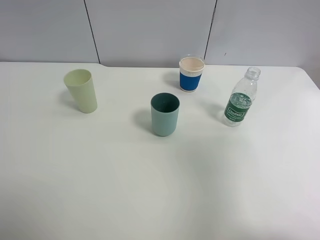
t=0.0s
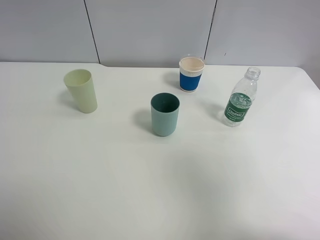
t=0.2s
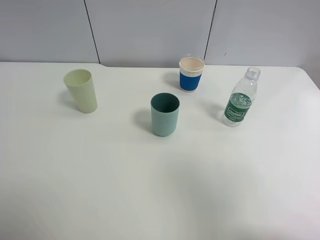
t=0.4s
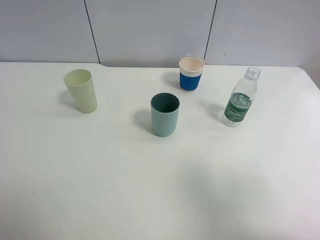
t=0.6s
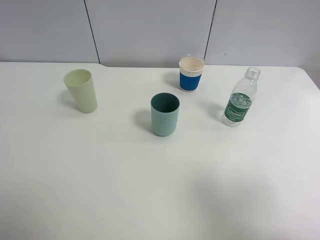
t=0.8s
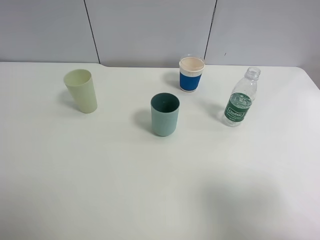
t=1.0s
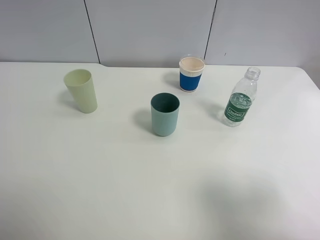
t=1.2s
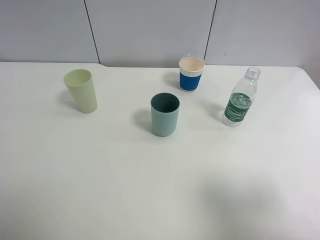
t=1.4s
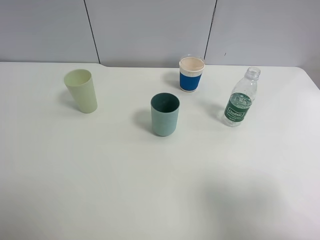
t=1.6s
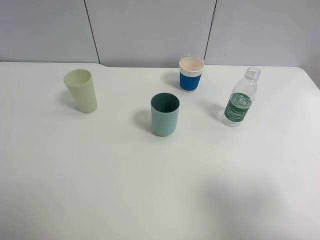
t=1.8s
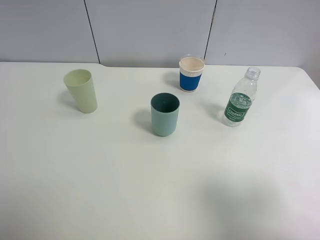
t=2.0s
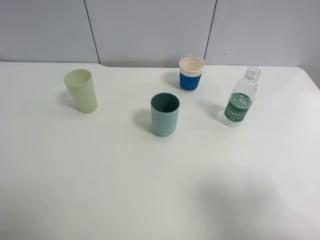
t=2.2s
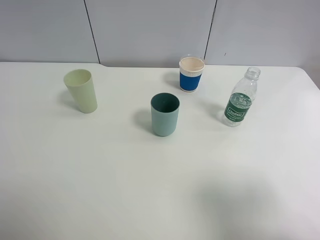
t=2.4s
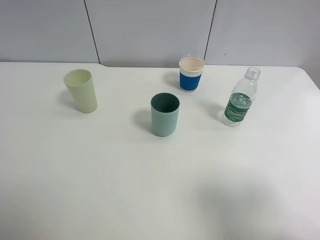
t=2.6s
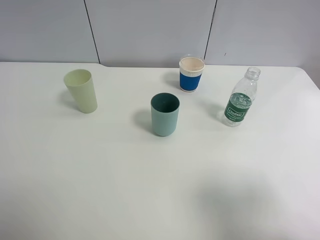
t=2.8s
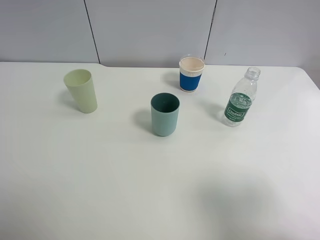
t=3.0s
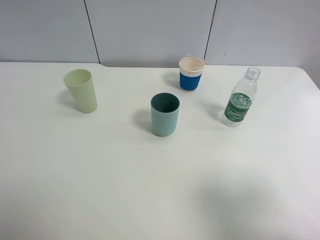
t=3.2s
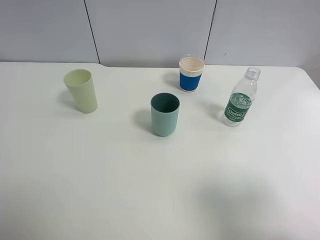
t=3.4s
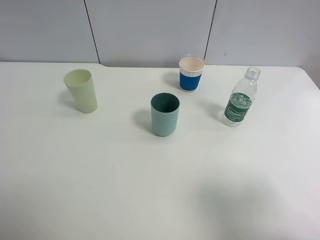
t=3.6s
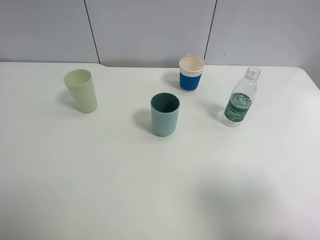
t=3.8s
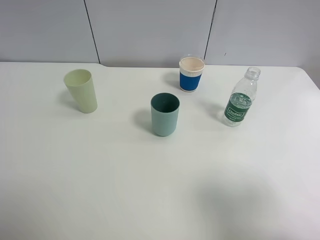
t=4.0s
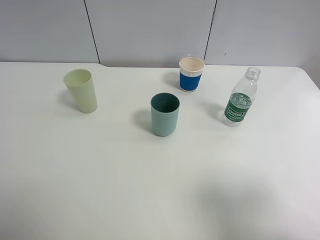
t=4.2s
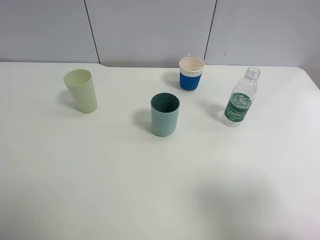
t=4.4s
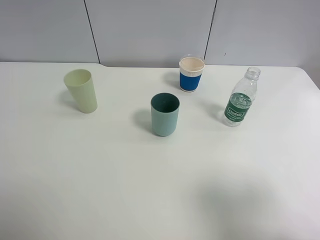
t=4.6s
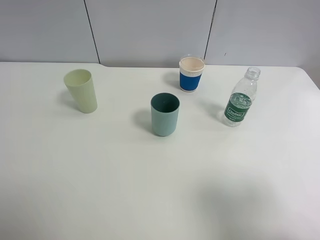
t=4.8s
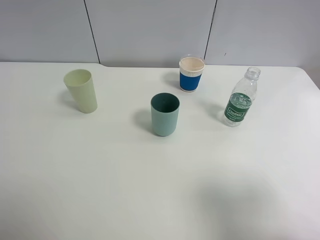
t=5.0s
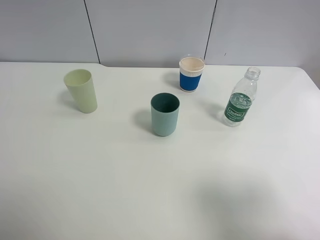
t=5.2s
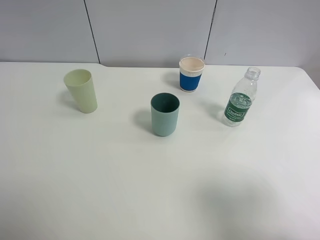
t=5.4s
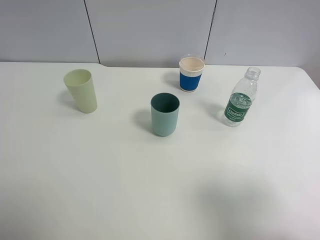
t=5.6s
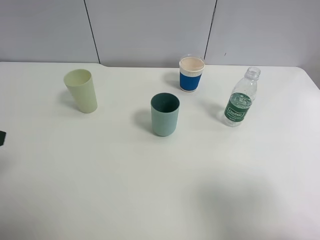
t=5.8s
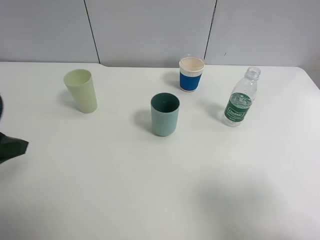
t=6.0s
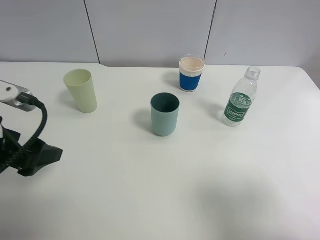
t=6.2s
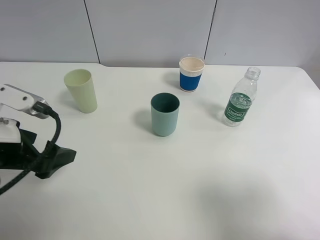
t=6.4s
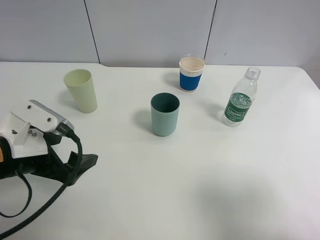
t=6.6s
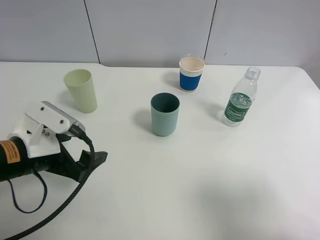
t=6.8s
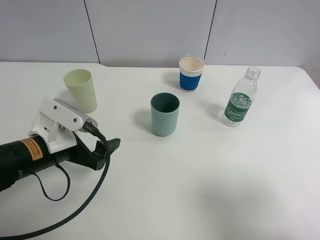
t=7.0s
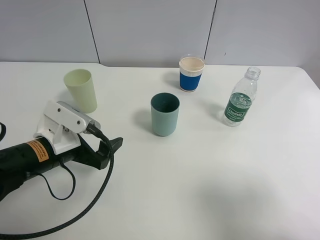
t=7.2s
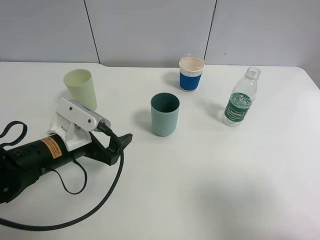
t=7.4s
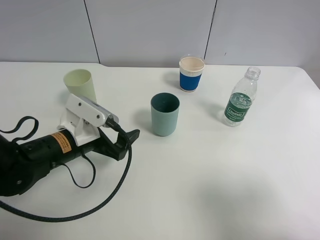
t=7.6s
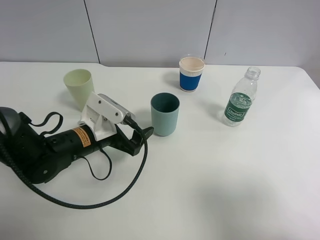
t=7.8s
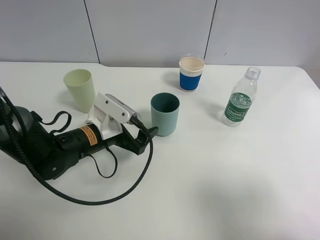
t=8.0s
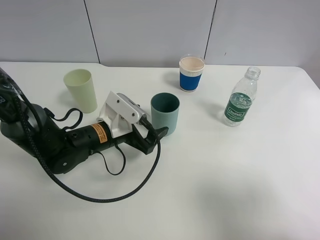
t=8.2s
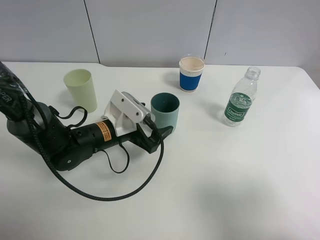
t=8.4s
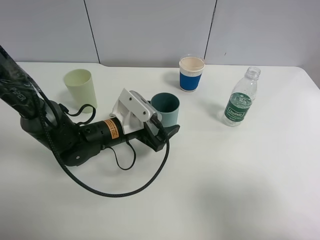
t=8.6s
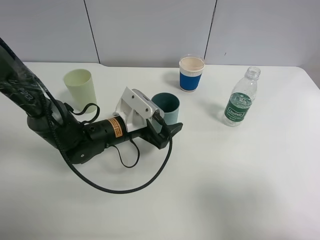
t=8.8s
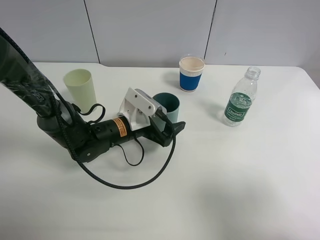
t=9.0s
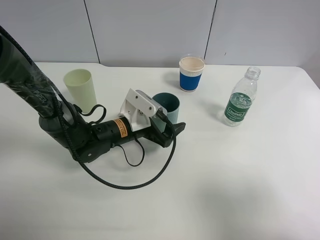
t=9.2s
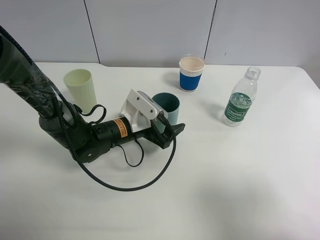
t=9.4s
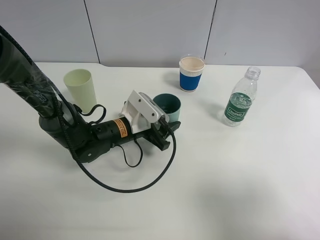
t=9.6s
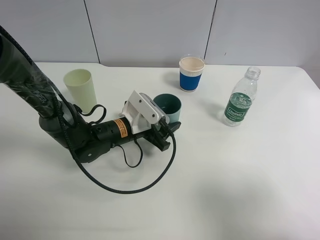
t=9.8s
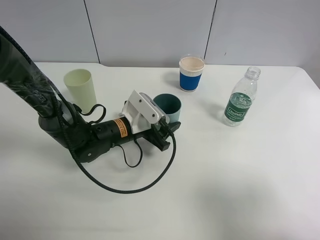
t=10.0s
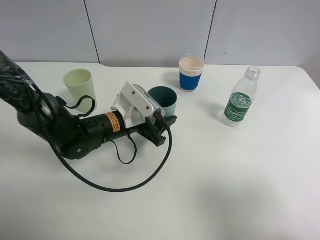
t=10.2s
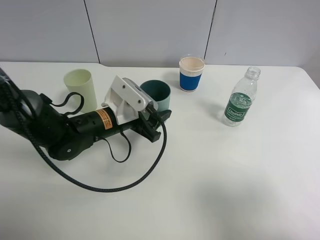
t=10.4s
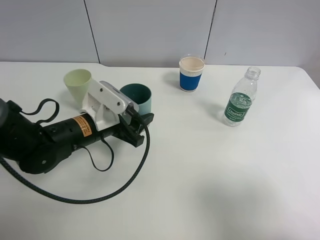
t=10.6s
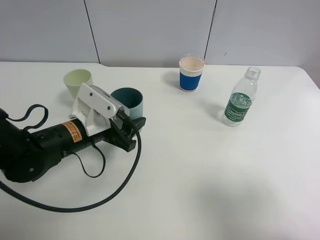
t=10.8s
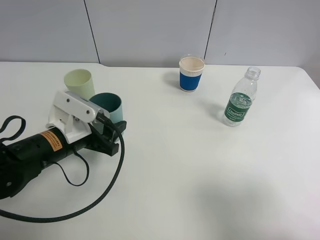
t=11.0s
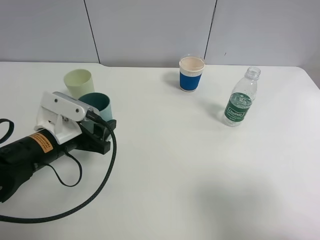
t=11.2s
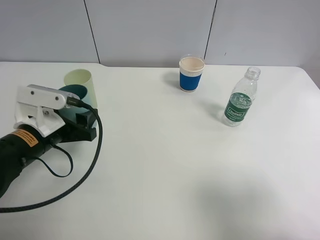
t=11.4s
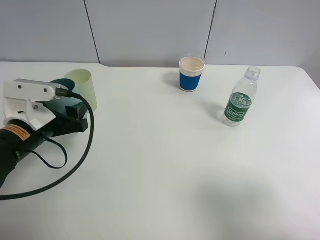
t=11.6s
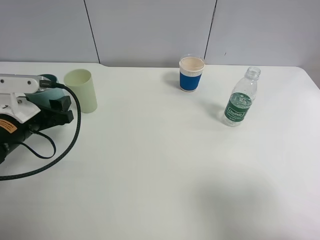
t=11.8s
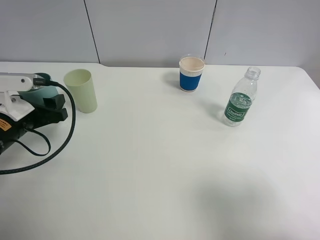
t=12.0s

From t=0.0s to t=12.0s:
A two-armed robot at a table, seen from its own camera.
Task of the whole recording: use a clamp to hold the bottle of the drink, pour the beverage into a random cup, then clamp the cup containing the drink and pour the drink into another random cup.
Step, from t=0.0s to t=10.2s: Pick up the blue plastic cup bottle with left gripper.
From t=0.0s to t=1.6s: The right gripper moves downward and backward, roughly 10 cm.
From t=3.0s to t=4.4s: Both grippers stay about where they are.
From t=4.4s to t=6.0s: The left gripper moves forward, about 15 cm.
From t=6.0s to t=7.6s: The left gripper moves downward, to the right and forward, some 20 cm.
From t=7.6s to t=9.0s: The left gripper moves to the right and forward, approximately 10 cm.
From t=9.0s to t=10.4s: The left gripper ends up about 5 cm from where it was, and closes its fingers.
From t=10.4s to t=12.0s: The left gripper shifts approximately 15 cm to the left.

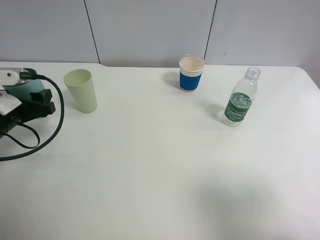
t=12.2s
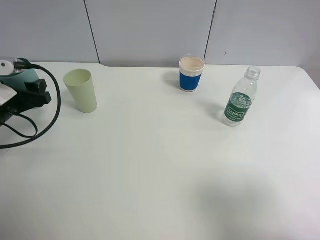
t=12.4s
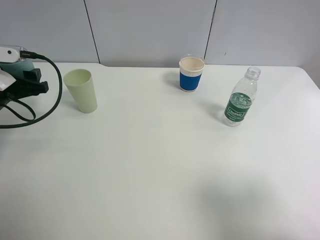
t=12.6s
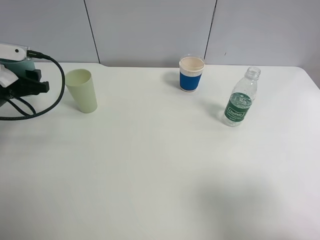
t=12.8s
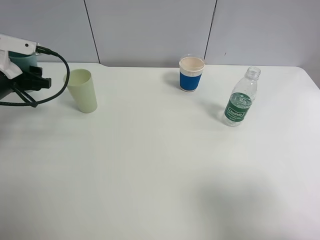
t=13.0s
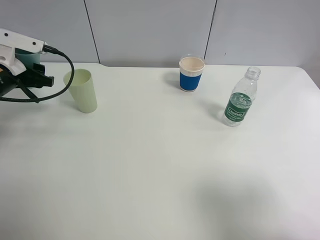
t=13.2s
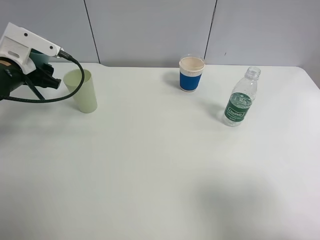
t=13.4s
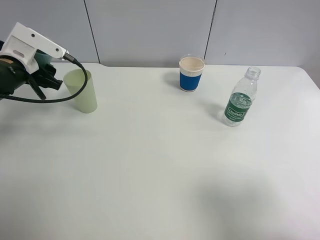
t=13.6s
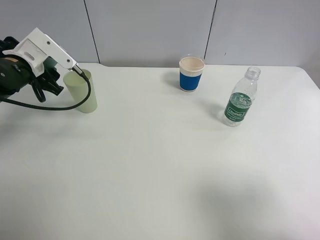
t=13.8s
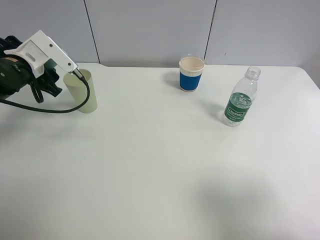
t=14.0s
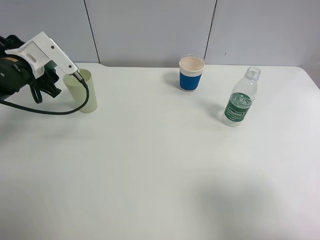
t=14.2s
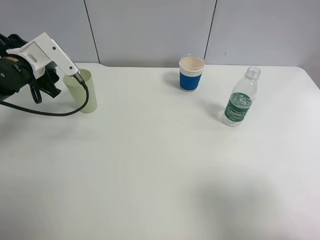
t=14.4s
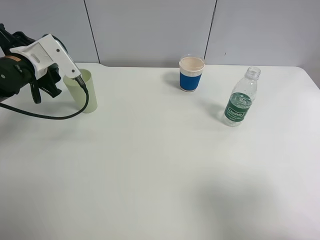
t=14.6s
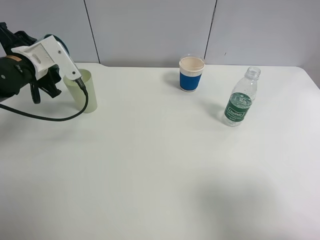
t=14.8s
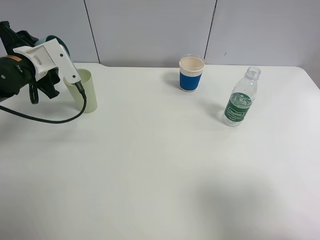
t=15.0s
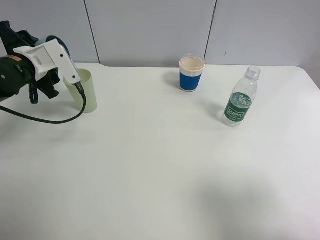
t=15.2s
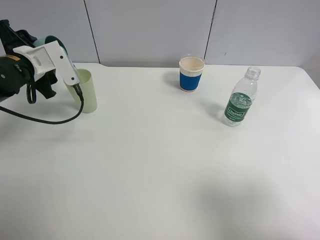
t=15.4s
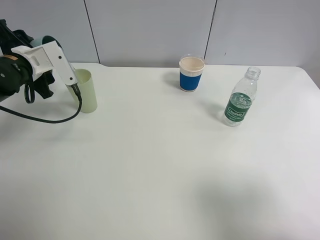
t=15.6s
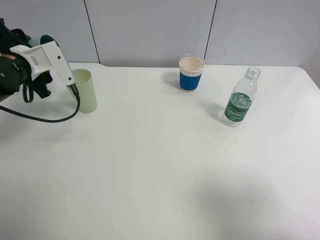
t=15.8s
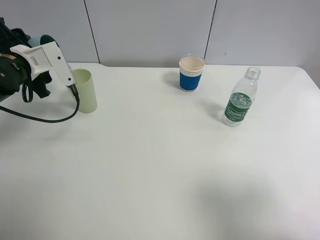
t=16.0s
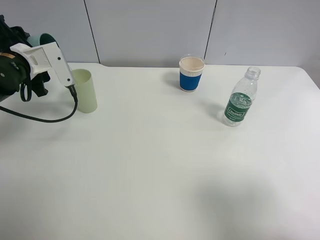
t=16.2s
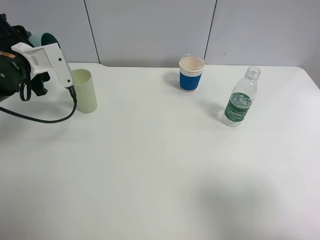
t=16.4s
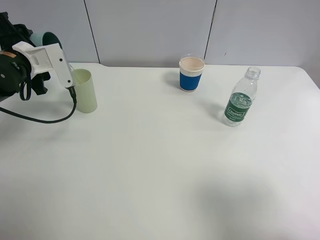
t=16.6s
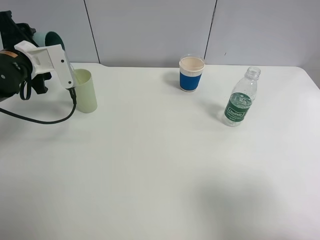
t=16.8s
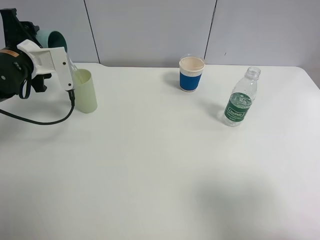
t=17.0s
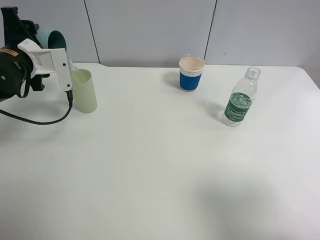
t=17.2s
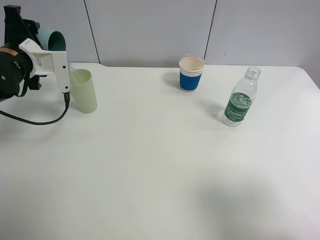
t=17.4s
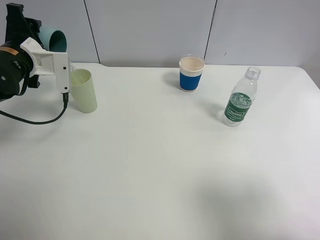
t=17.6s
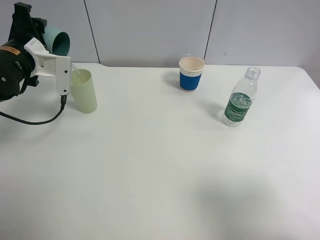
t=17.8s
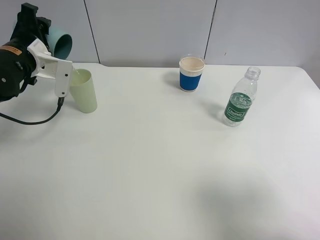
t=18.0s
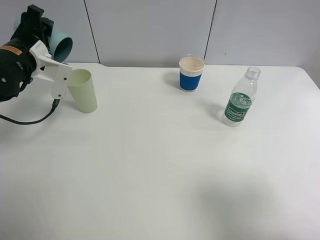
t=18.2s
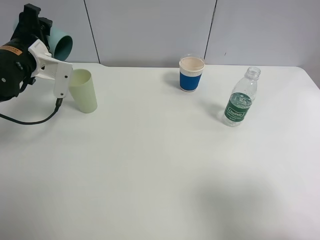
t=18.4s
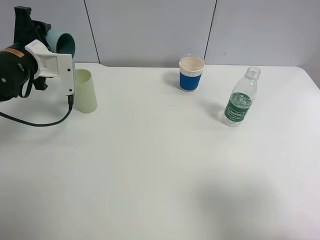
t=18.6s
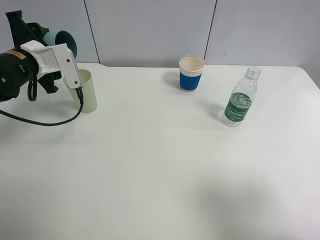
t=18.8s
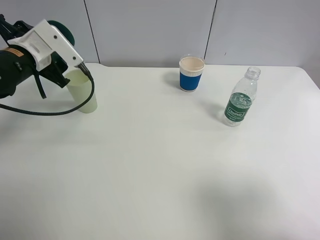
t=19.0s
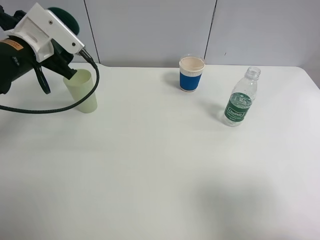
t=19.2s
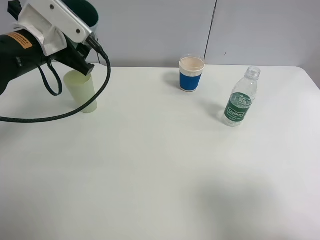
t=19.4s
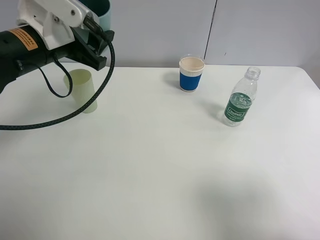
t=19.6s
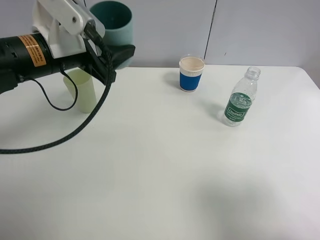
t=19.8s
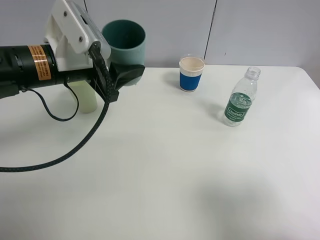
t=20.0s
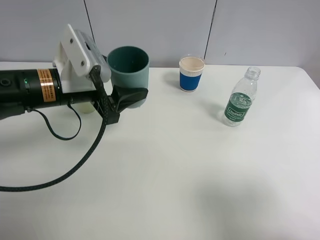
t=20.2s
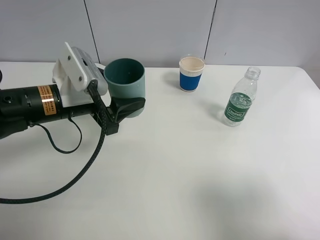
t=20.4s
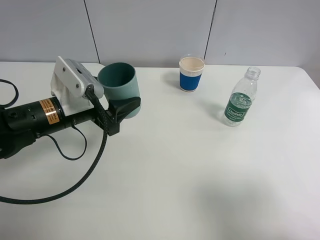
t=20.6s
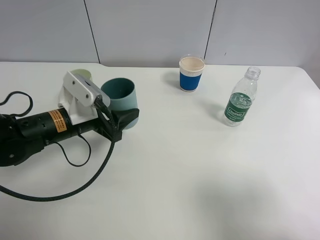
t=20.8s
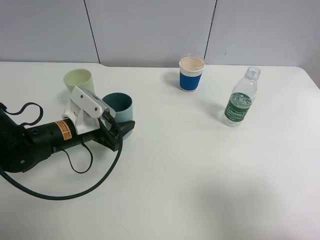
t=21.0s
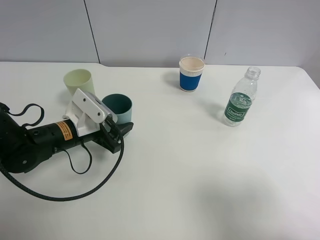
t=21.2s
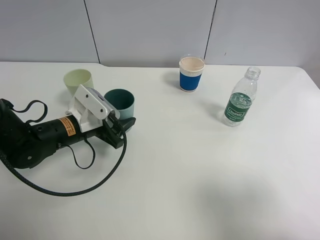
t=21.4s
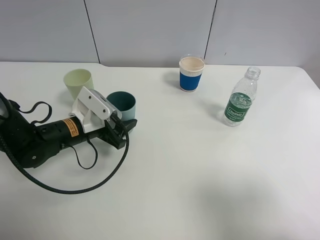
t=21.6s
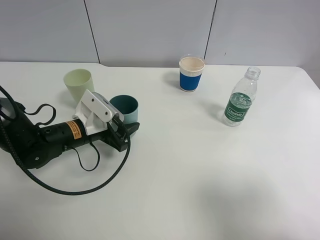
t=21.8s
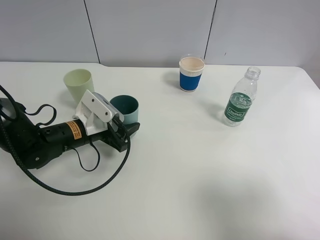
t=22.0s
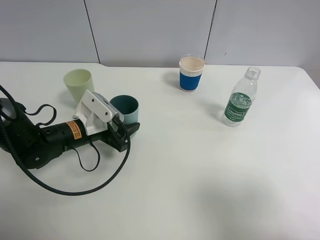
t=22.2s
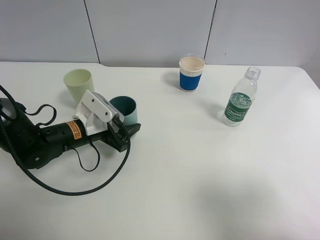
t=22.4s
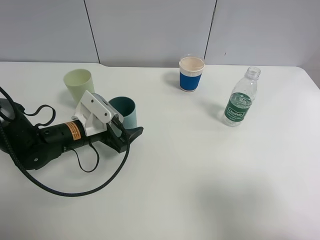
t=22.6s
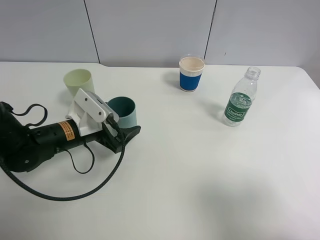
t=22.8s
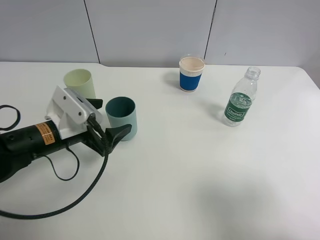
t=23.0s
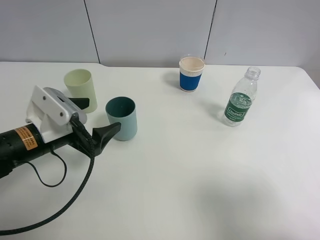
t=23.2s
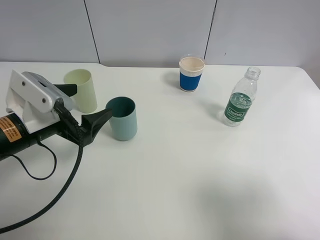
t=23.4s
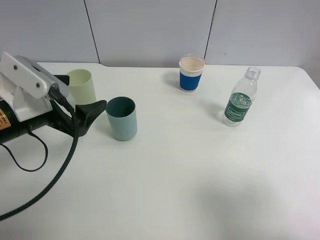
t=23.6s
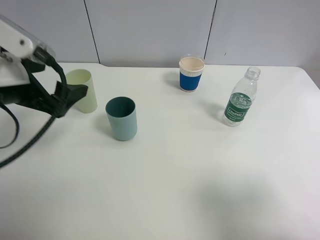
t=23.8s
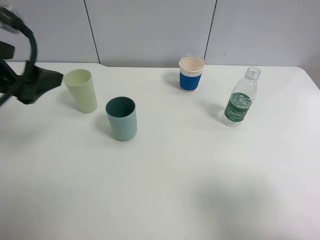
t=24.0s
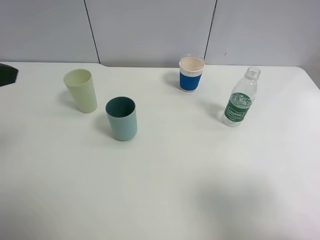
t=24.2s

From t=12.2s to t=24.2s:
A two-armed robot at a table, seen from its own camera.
Task of the whole recording: use a clamp to hold the bottle of the drink, pour the beverage into a random cup, then clamp the cup containing the drink and pour the drink into another random cup.
Step, from t=12.2s to t=19.0s: Pour the water into the green plastic cup with left gripper.
Step, from t=19.2s to t=23.0s: Place the green plastic cup on the table with left gripper.
From t=12.2s to t=13.8s: The left gripper is displaced forward by roughly 10 cm.
From t=15.2s to t=16.6s: The grippers stay close to where they were, moving slightly.
From t=18.2s to t=19.8s: The left gripper shifts some 10 cm to the right and backward.
From t=19.8s to t=21.2s: The left gripper shifts roughly 15 cm downward.
From t=21.2s to t=22.6s: The left gripper opens its fingers.
From t=22.6s to t=24.2s: The left gripper is displaced upward and backward by roughly 30 cm.
